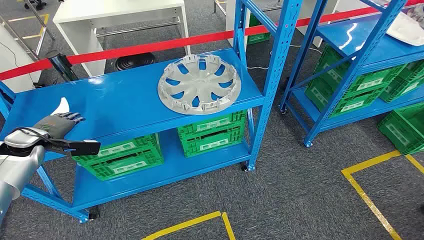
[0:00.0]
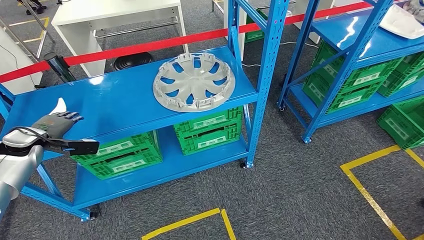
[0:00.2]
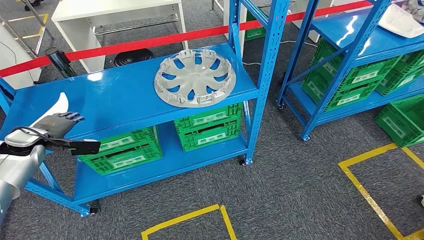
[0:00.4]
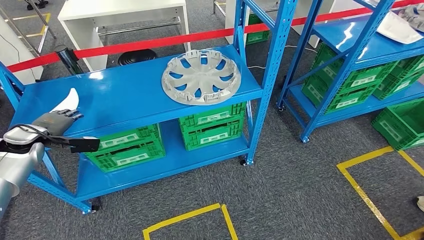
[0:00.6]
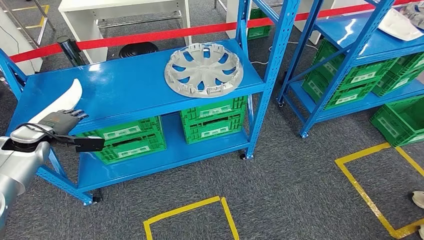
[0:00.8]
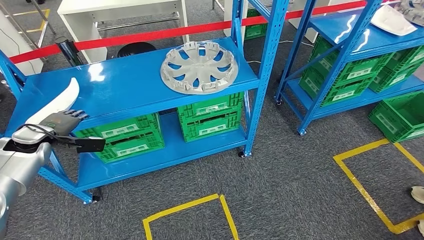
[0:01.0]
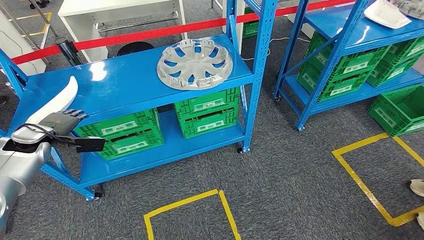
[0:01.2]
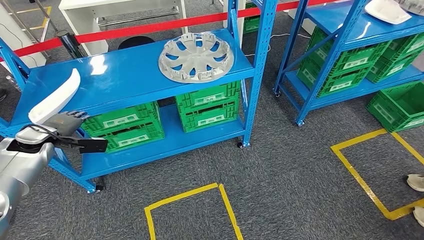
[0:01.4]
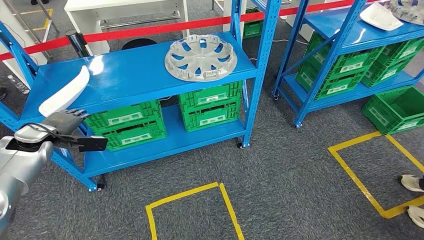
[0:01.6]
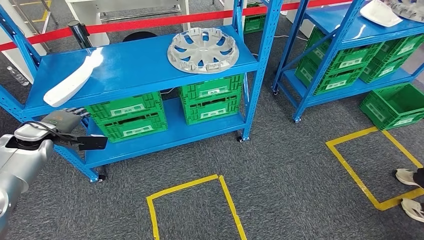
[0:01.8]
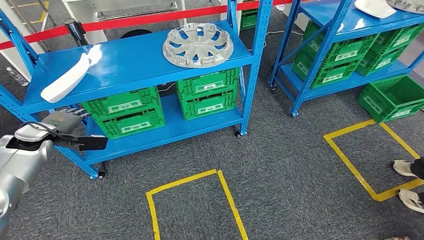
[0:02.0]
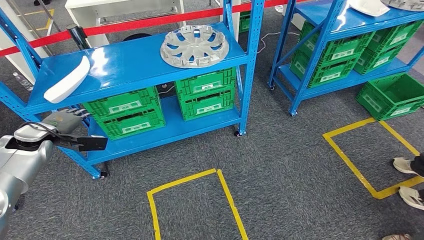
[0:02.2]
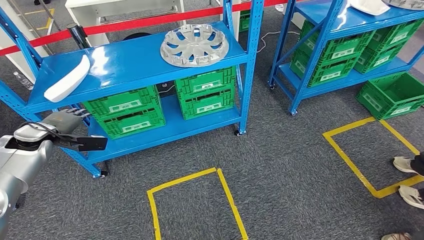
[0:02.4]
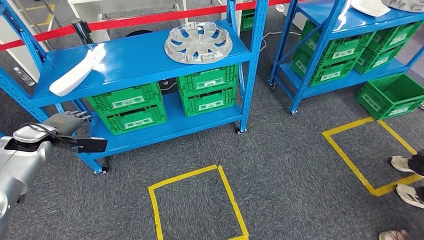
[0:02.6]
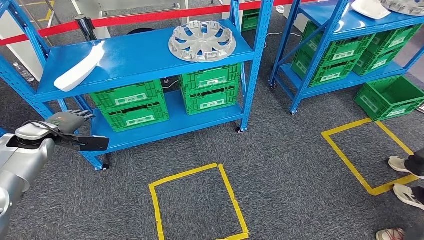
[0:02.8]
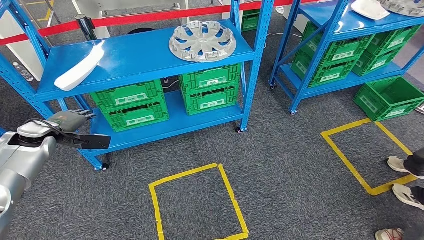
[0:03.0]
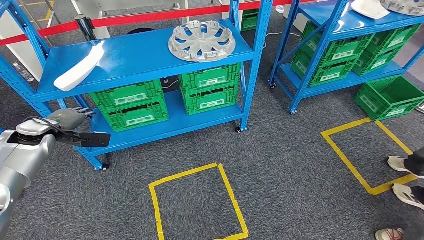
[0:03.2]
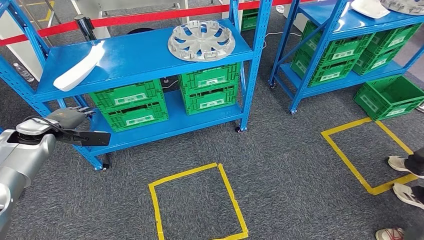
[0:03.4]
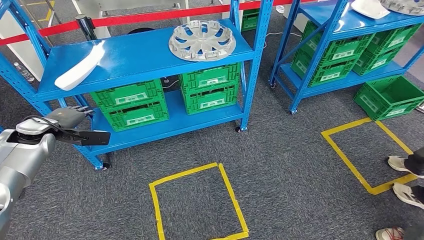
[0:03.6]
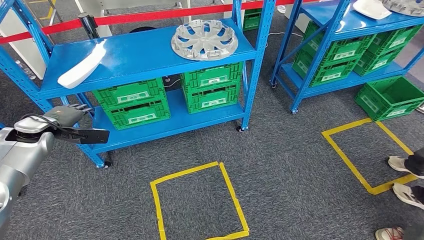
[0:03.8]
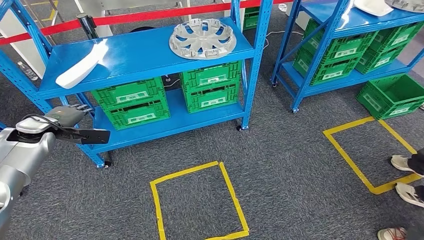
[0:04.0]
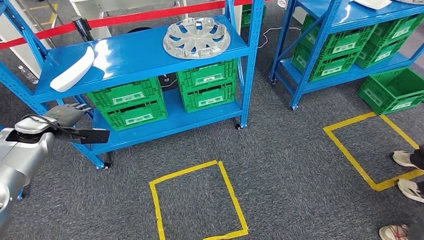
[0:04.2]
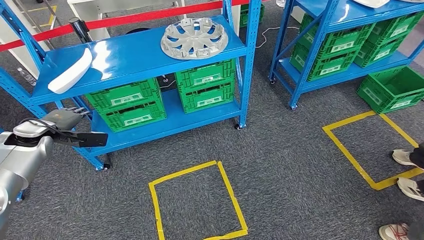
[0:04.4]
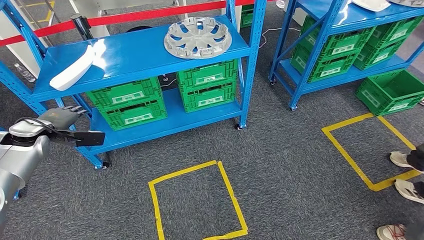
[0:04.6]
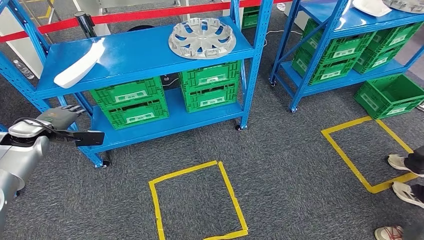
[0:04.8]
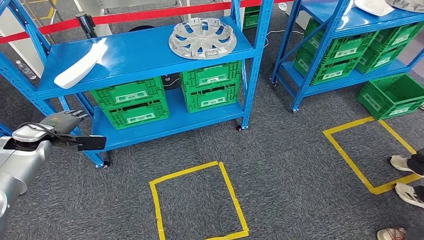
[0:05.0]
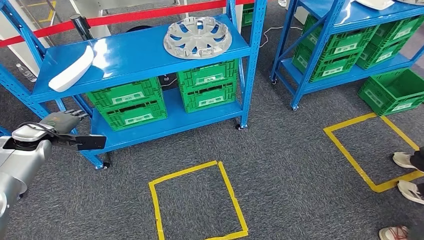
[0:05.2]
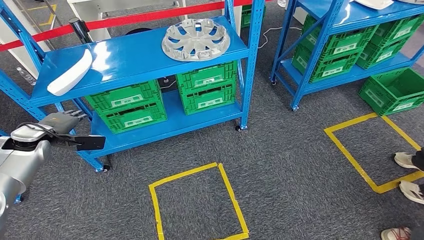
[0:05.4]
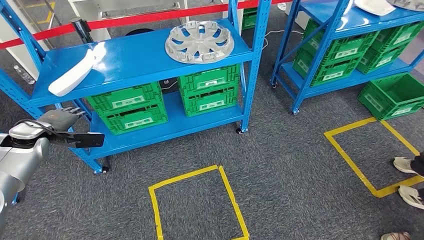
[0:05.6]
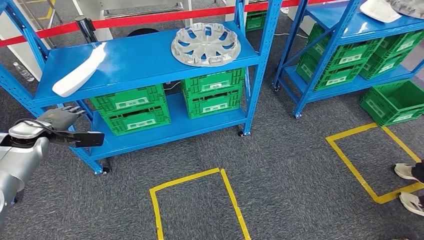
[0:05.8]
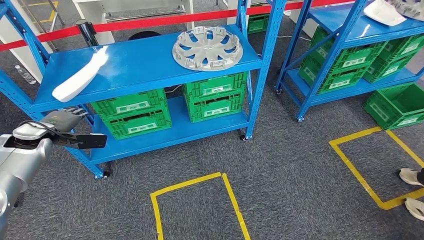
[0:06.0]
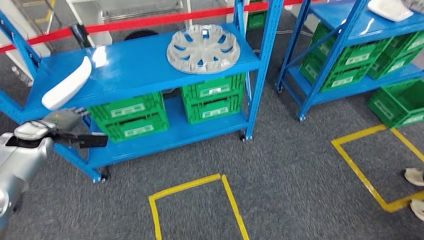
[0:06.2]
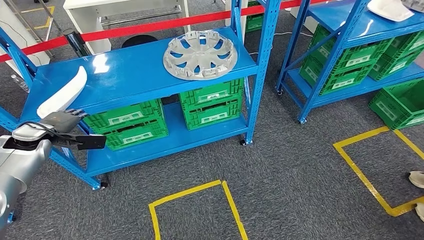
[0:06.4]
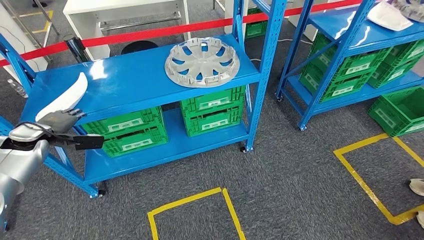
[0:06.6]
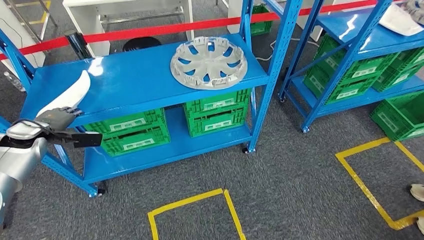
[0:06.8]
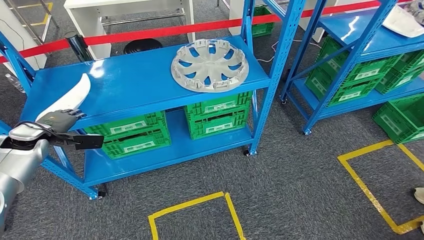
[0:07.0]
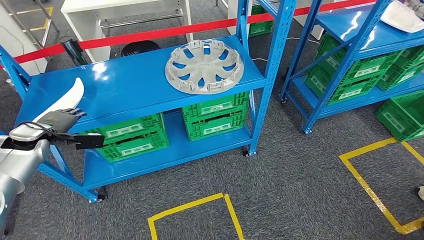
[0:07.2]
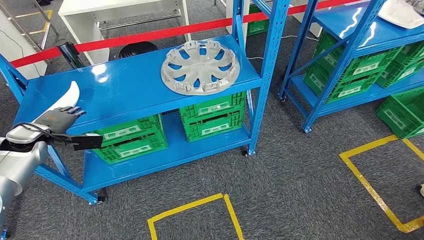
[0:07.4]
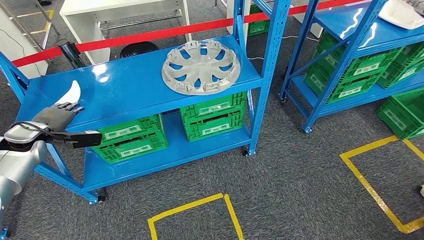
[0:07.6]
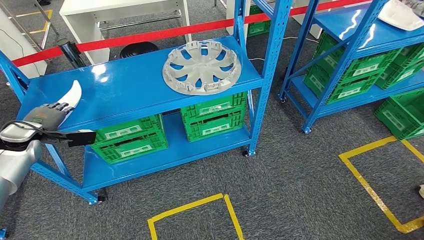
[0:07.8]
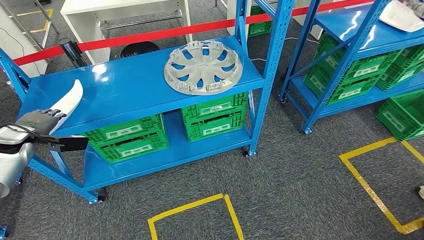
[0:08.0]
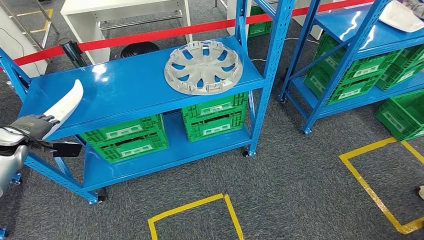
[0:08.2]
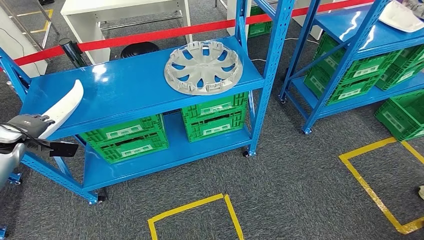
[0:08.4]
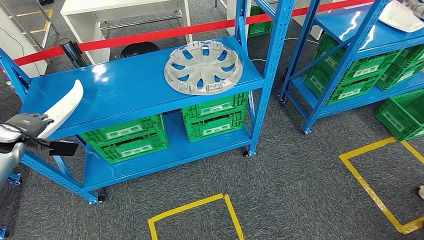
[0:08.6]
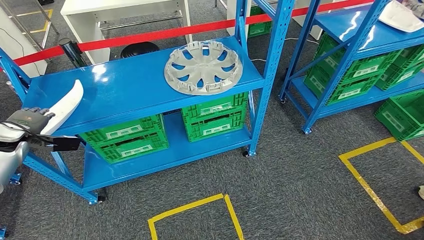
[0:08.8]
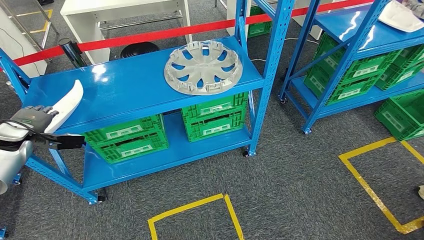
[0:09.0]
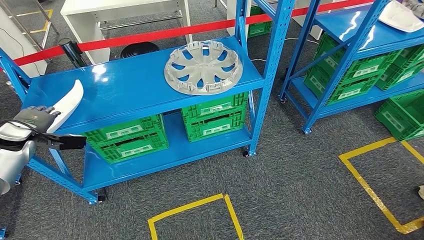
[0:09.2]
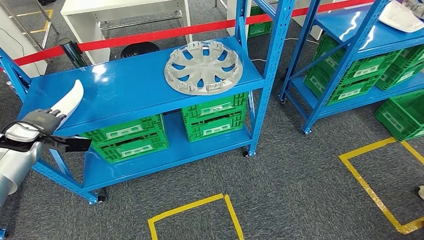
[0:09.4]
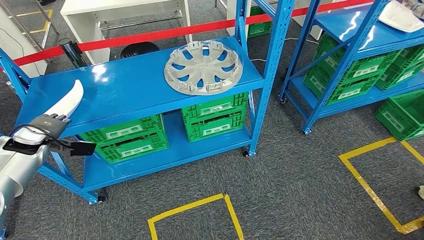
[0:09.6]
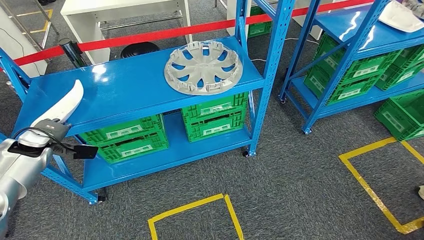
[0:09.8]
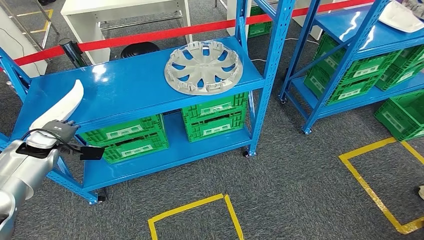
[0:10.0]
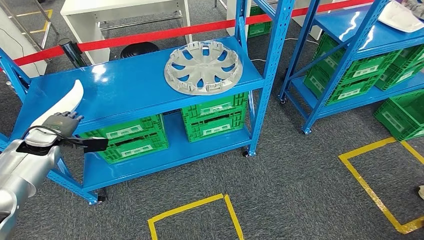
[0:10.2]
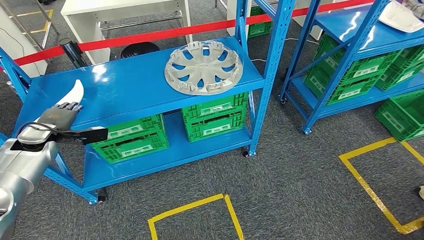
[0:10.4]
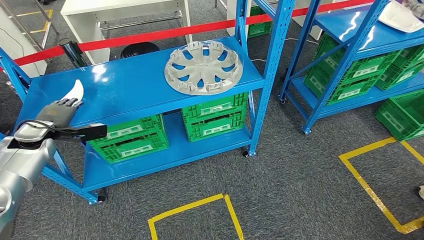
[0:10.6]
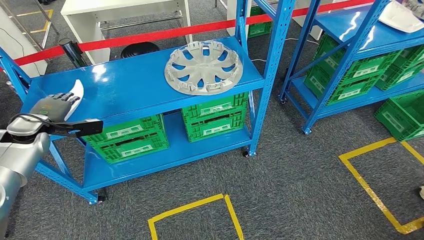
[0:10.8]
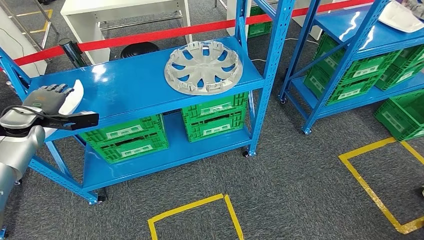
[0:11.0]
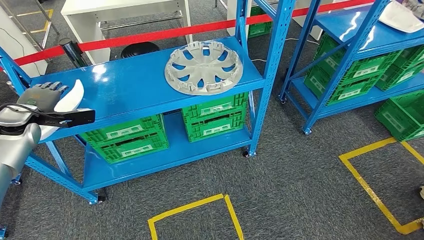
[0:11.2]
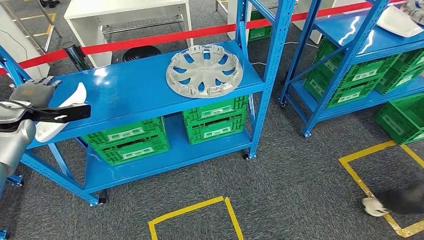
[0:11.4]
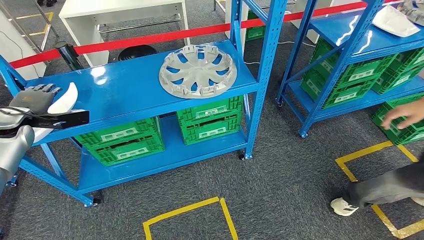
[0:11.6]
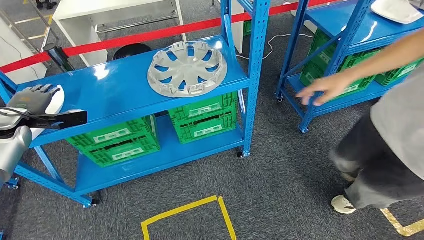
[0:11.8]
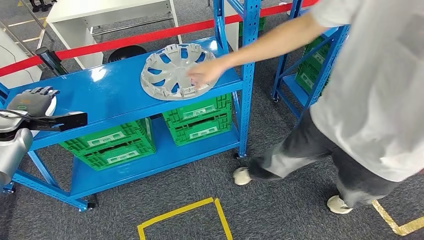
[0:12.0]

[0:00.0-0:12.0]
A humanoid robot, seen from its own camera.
0:09.0 to 0:10.4: The left hand is displaced to the right by some 5 cm.

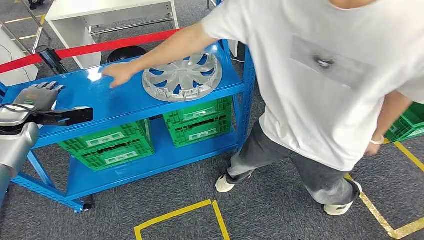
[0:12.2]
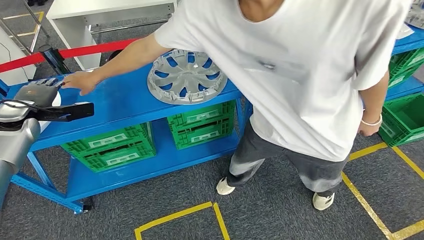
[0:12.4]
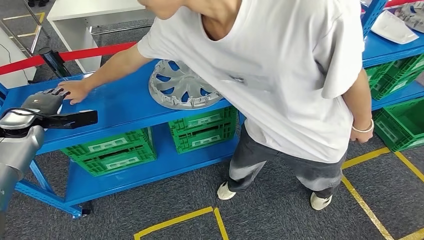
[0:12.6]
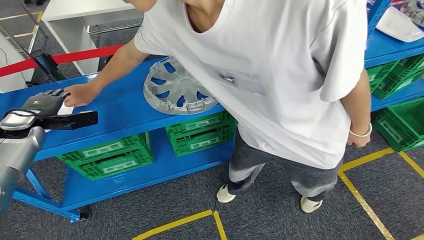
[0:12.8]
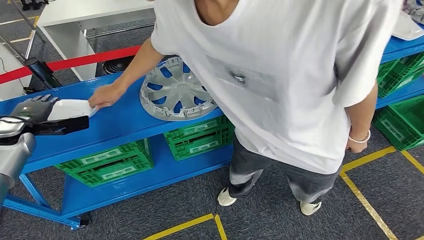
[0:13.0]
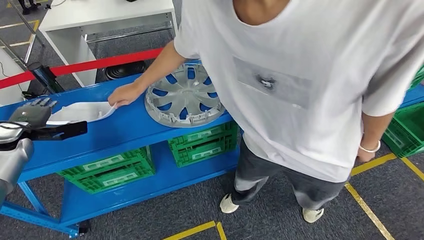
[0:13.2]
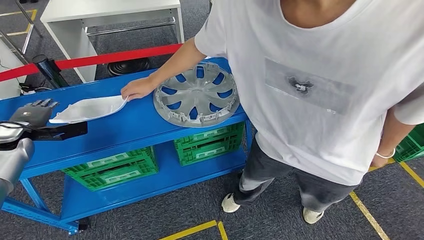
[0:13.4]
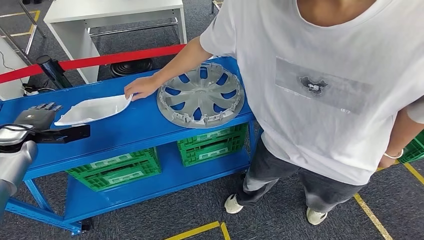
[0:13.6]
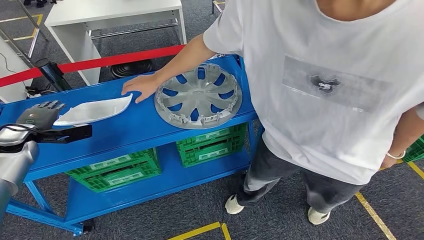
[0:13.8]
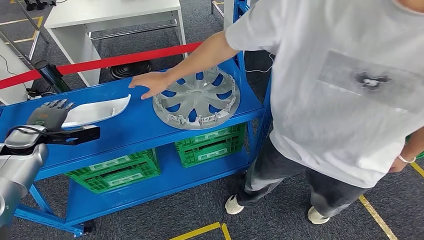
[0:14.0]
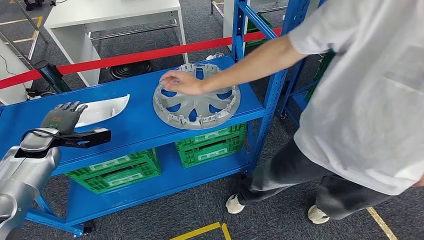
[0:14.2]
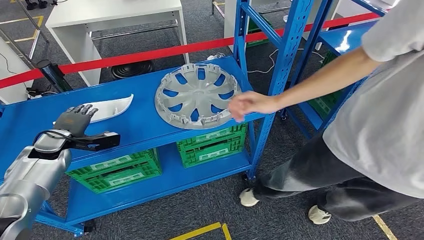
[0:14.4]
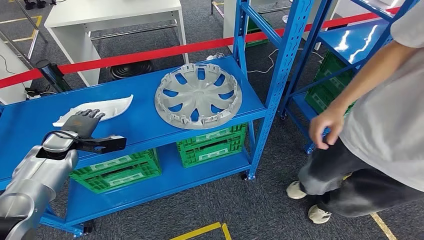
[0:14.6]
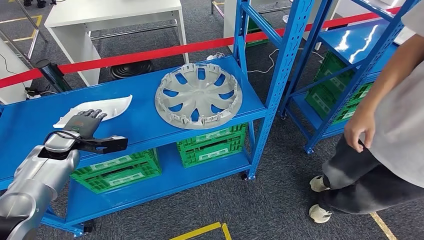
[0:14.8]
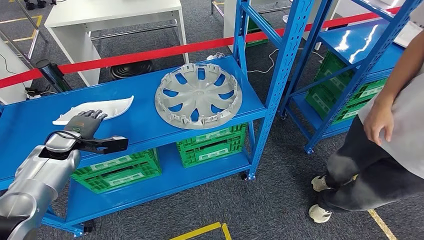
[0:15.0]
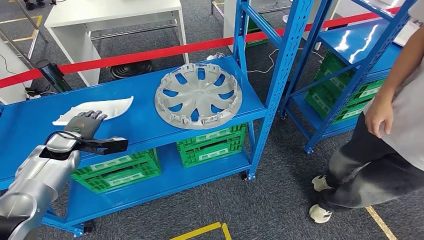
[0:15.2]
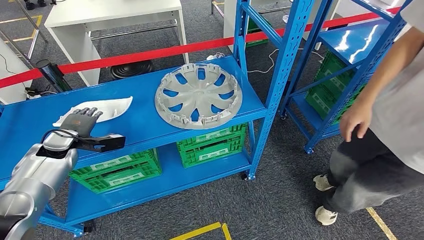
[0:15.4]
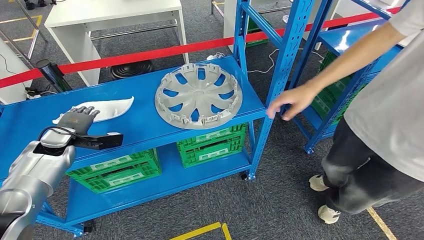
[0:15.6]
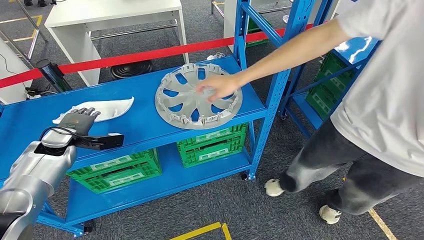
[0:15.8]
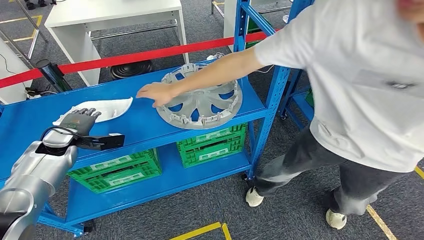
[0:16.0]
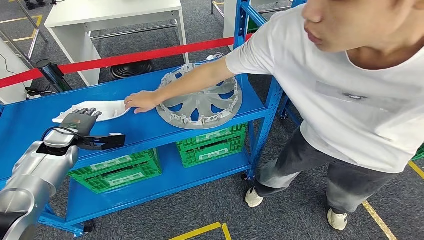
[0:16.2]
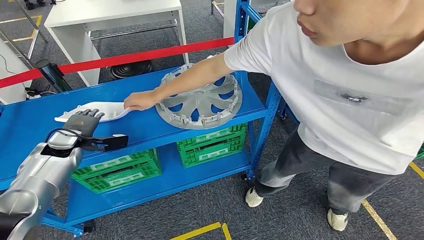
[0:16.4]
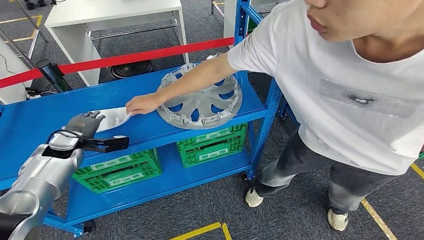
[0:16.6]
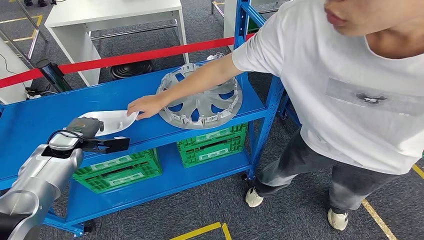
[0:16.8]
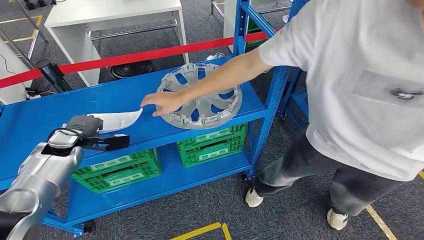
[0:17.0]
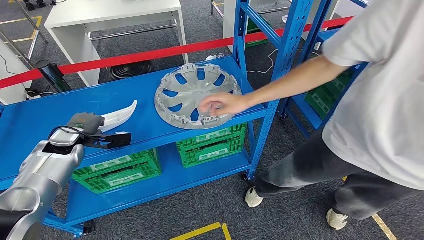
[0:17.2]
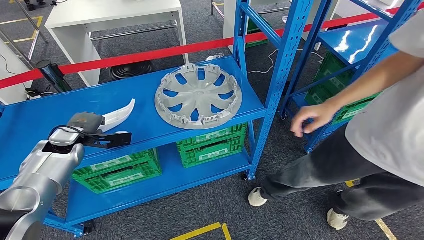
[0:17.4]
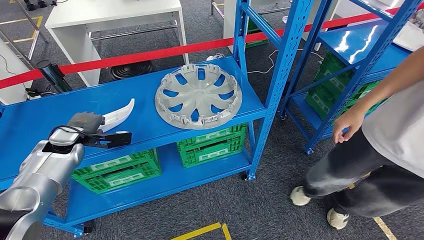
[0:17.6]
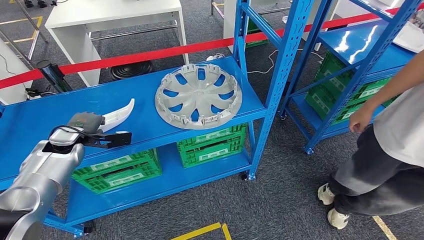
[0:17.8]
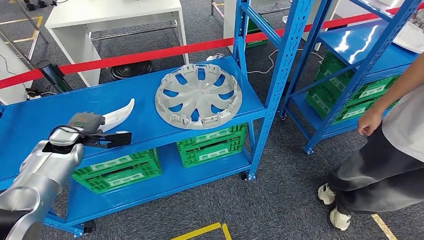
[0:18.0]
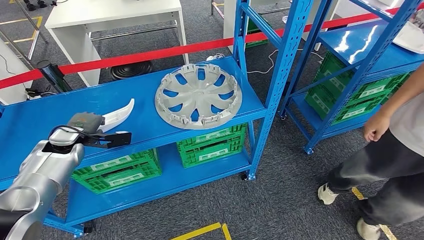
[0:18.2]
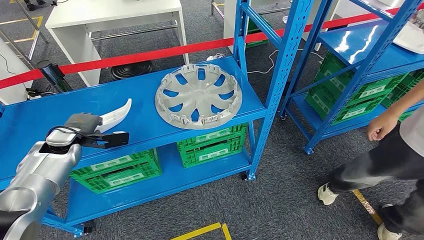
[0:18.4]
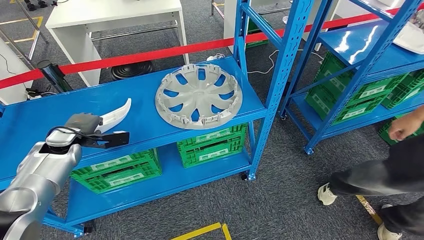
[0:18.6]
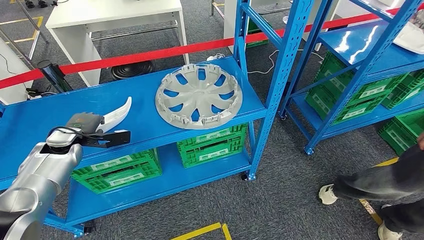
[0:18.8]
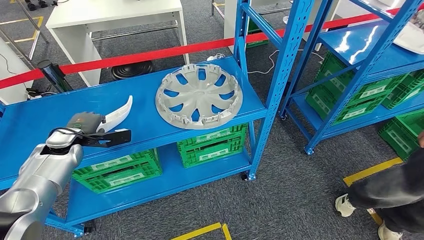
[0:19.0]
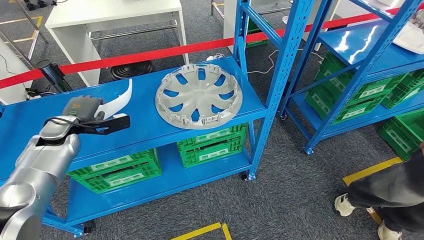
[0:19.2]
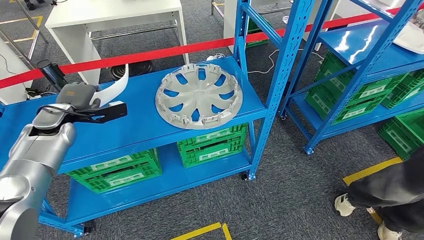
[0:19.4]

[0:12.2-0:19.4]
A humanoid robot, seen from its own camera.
0:18.0 to 0:19.4: The left hand heads upward, covering approximately 5 cm.
